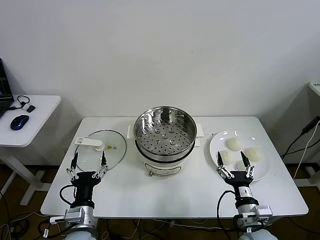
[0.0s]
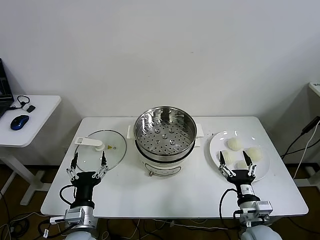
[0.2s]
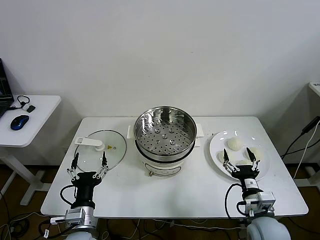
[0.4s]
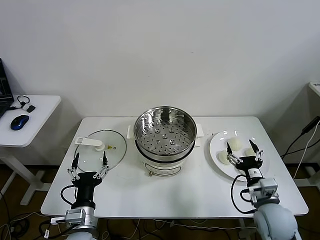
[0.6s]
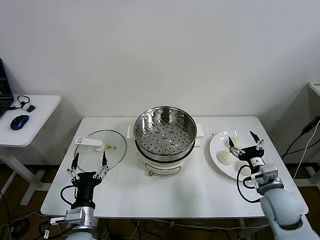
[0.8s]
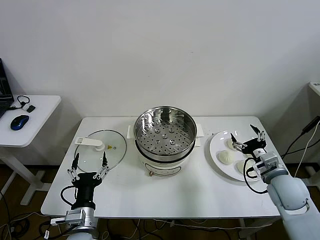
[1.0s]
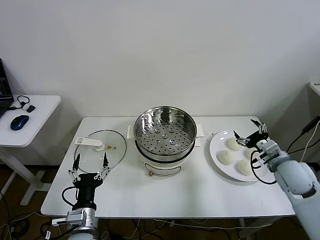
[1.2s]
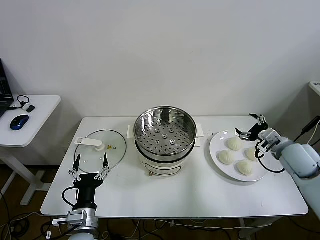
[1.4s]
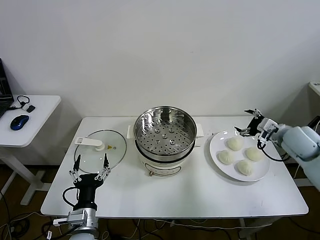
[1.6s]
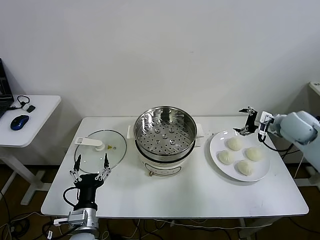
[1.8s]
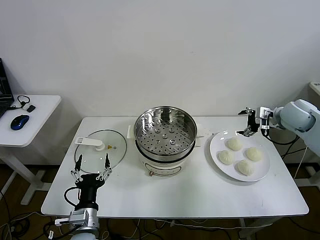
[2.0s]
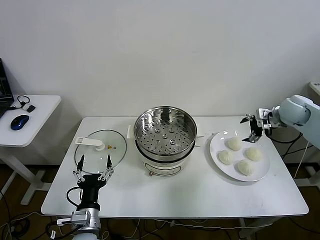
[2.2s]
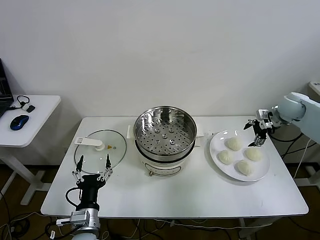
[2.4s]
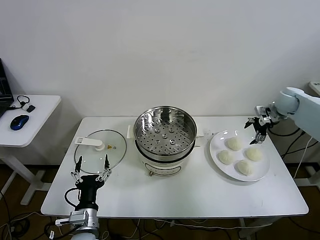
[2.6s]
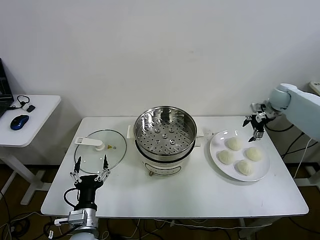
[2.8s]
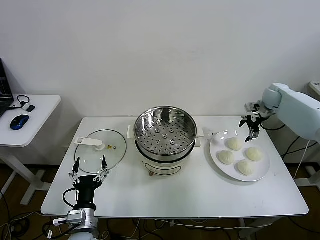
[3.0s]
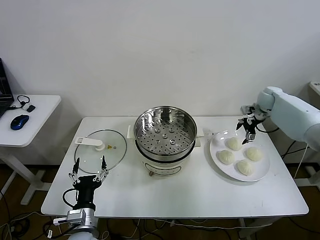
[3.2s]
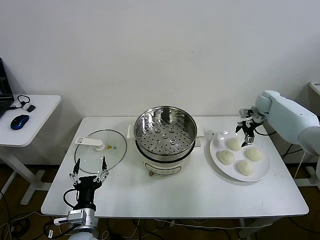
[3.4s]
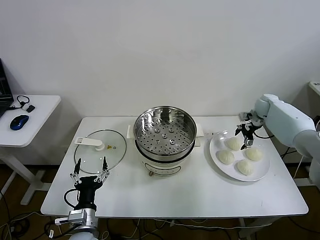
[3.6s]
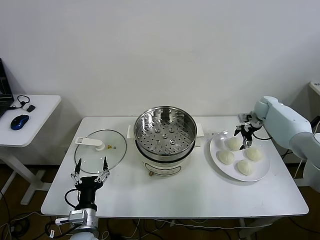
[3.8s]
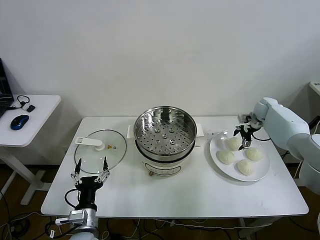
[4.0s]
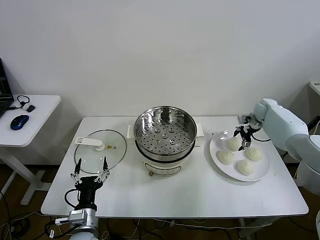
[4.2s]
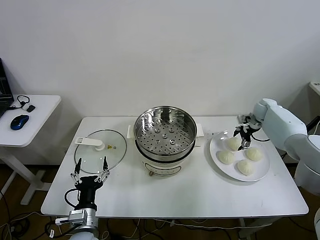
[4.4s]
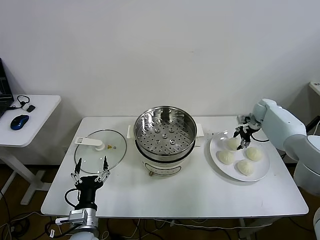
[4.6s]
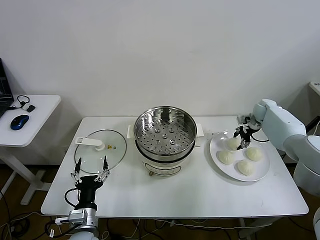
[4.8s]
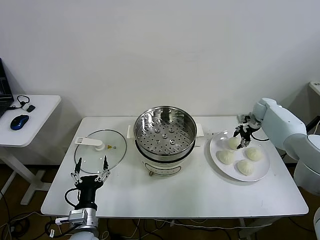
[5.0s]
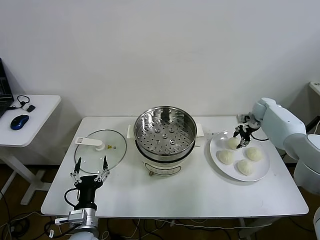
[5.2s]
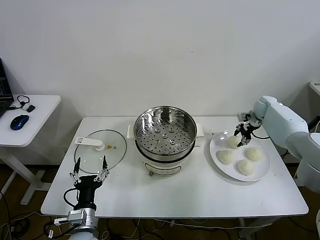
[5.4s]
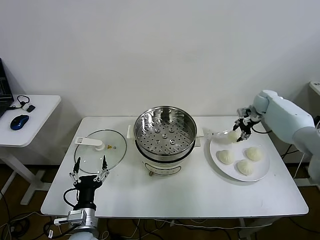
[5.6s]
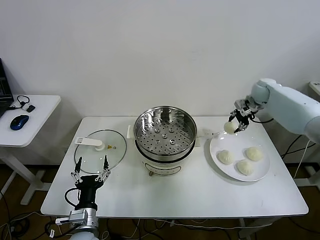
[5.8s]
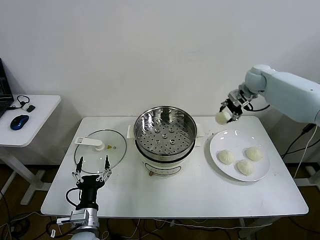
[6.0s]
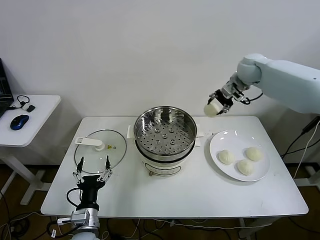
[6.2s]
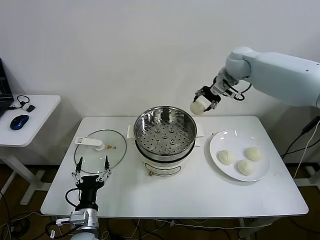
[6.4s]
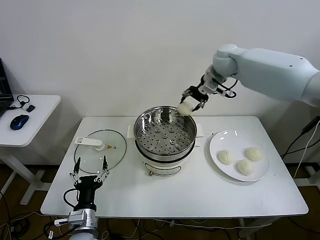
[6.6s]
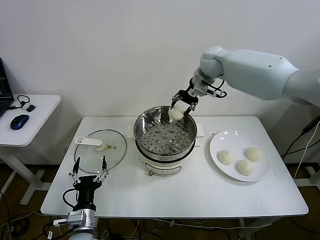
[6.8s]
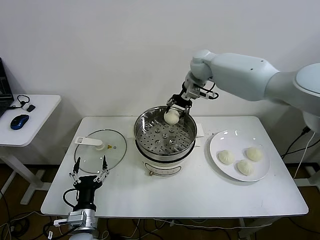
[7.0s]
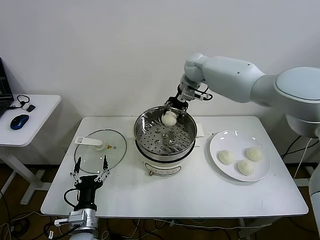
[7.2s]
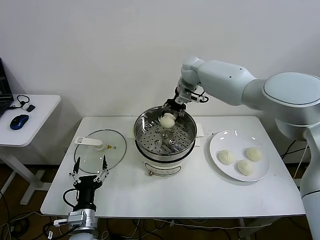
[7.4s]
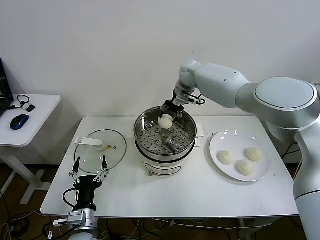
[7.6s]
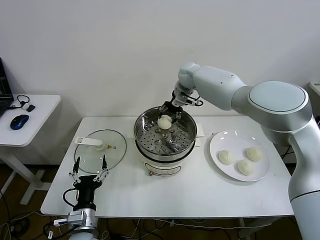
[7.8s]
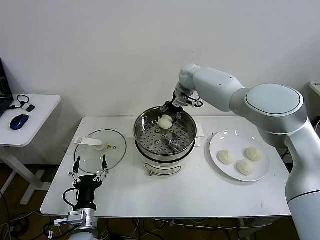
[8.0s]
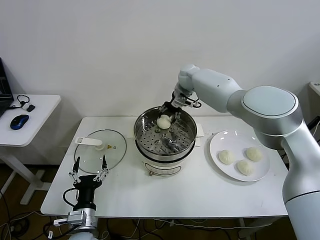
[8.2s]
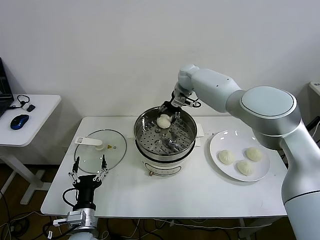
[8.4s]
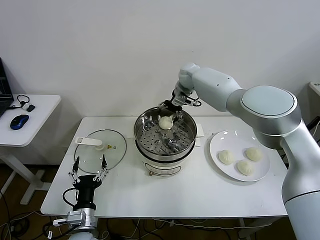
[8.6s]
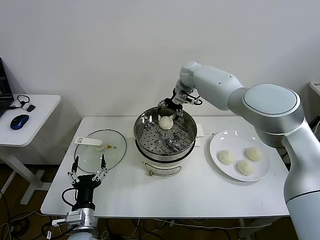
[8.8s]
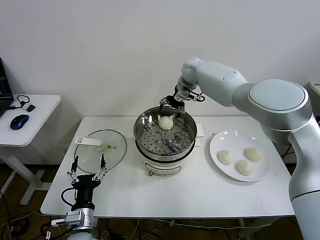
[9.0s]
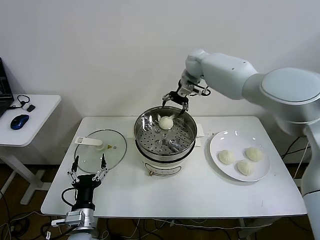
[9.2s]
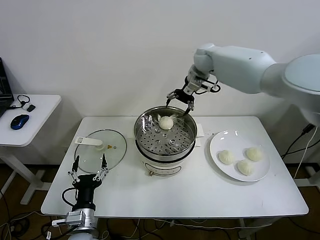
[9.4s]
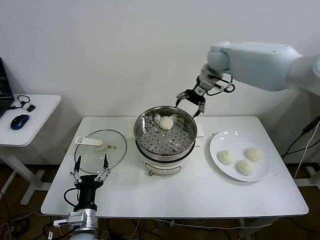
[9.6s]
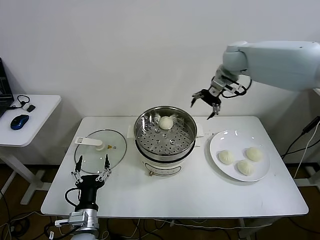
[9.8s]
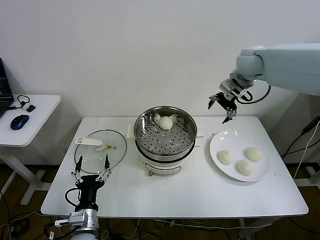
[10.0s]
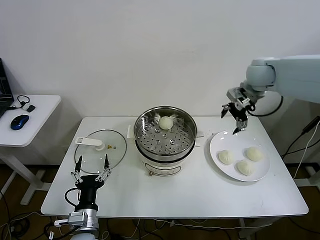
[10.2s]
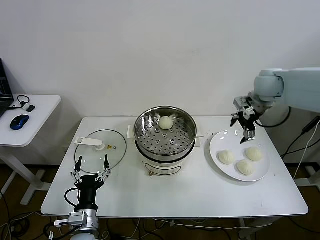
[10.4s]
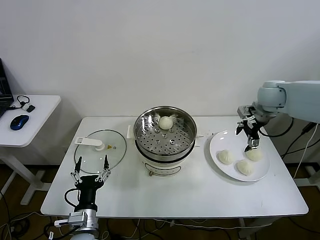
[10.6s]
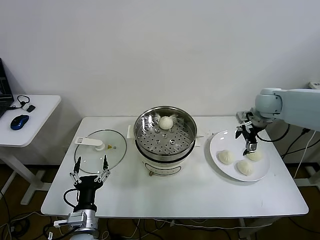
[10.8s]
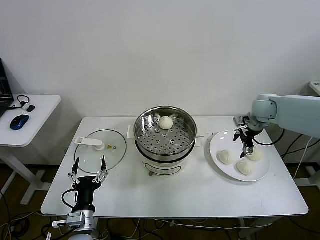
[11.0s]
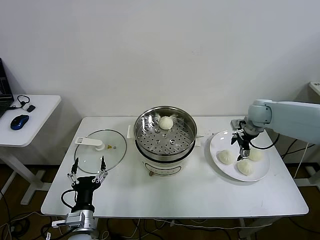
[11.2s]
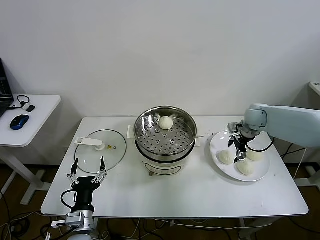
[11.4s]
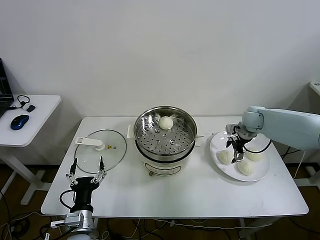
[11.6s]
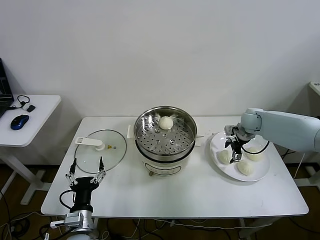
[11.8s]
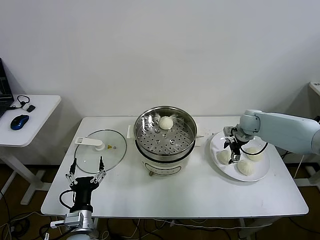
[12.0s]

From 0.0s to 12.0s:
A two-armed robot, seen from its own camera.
Step, from 0.0s to 5.0s: Grasp the baozi in the plate with right gripper.
Step, from 5.2s to 8.8s: Place the baozi on the steamer with right gripper.
From 1.6s to 3.0s: The right gripper shifts some 20 cm forward.
From 3.0s to 4.4s: The right gripper heads downward, covering approximately 5 cm.
From 4.4s to 6.0s: The right gripper heads upward and to the left, covering approximately 20 cm, and closes up.
From 6.0s to 7.6s: The right gripper shifts some 20 cm to the left.
From 7.6s to 9.0s: The right gripper opens up.
From 9.0s to 10.4s: The right gripper is displaced to the right and backward by some 25 cm.
From 10.4s to 12.0s: The right gripper shifts some 20 cm downward.

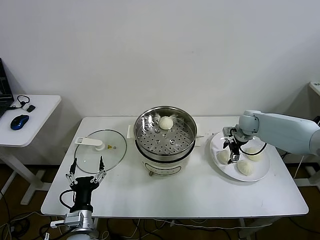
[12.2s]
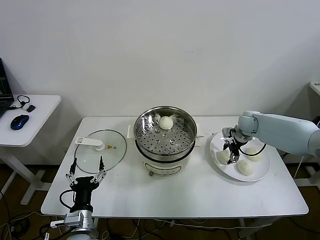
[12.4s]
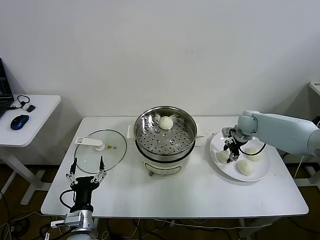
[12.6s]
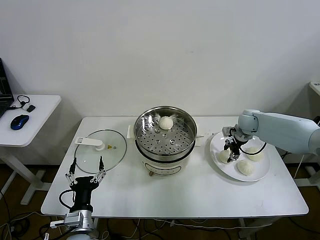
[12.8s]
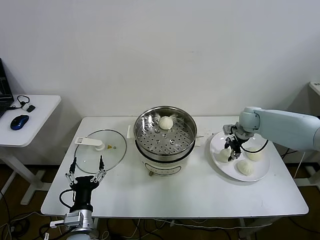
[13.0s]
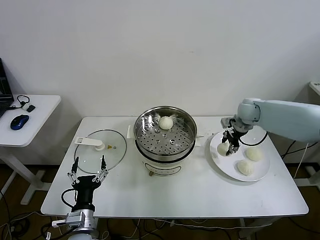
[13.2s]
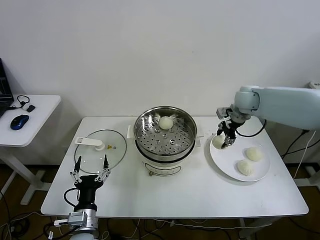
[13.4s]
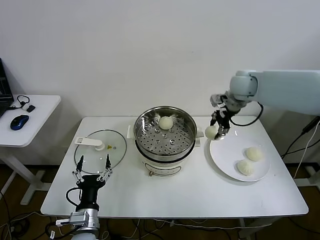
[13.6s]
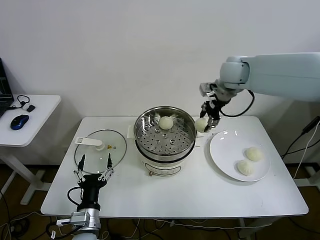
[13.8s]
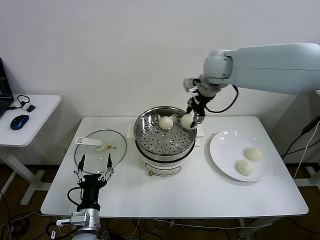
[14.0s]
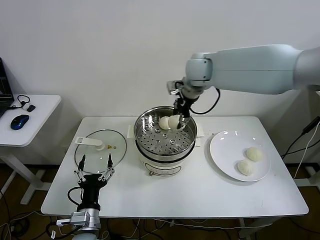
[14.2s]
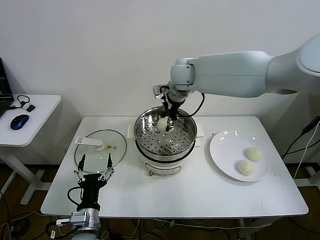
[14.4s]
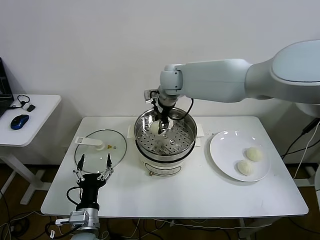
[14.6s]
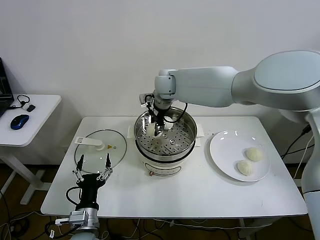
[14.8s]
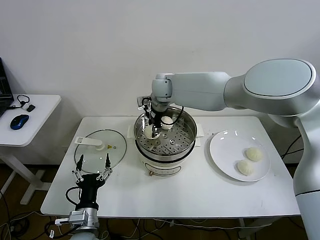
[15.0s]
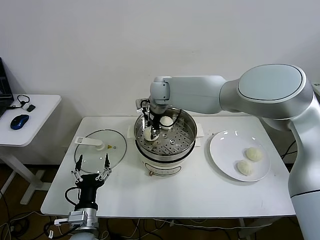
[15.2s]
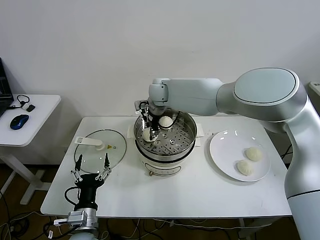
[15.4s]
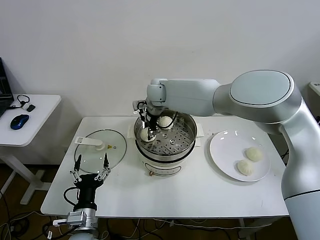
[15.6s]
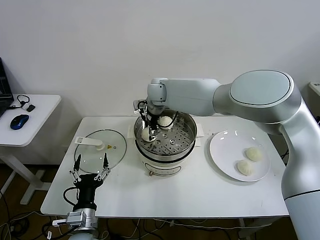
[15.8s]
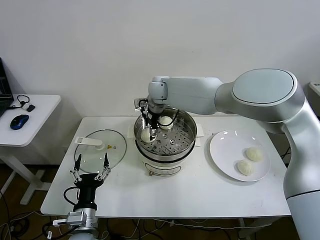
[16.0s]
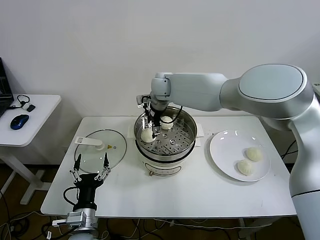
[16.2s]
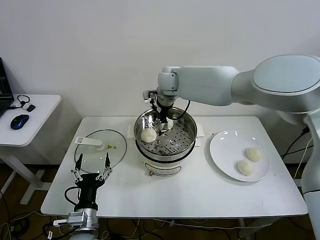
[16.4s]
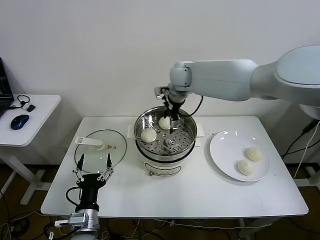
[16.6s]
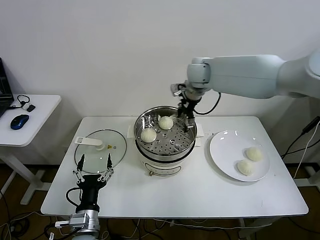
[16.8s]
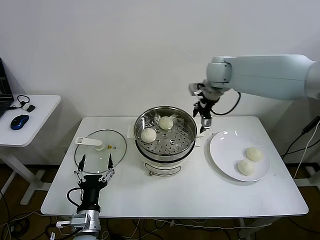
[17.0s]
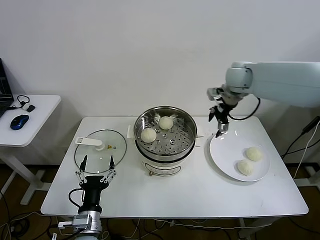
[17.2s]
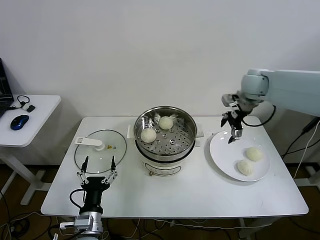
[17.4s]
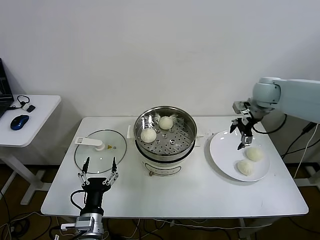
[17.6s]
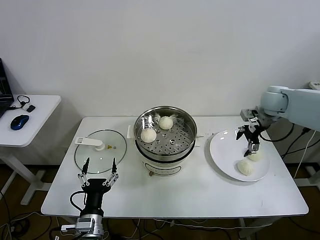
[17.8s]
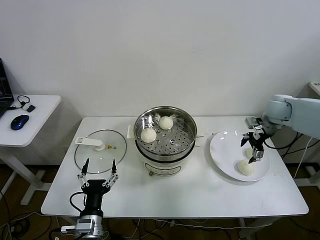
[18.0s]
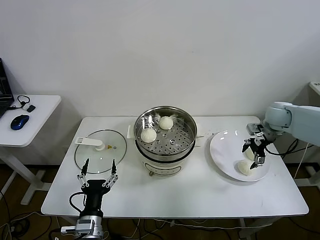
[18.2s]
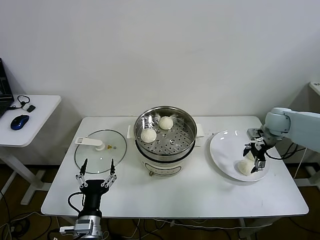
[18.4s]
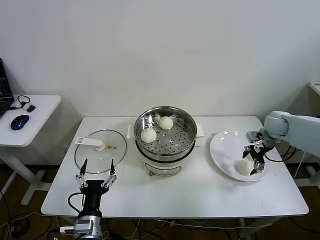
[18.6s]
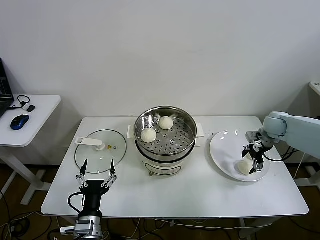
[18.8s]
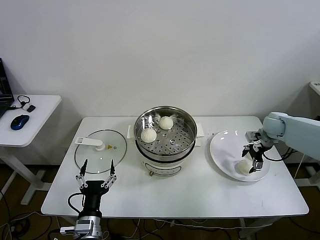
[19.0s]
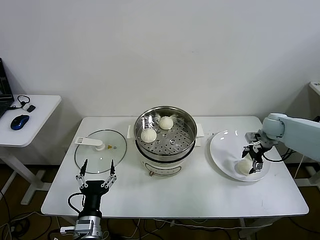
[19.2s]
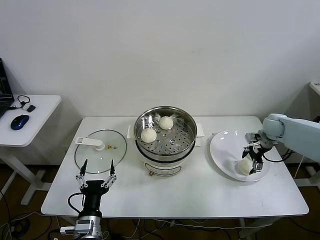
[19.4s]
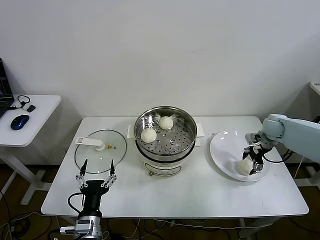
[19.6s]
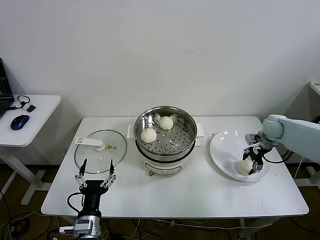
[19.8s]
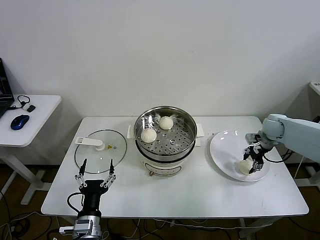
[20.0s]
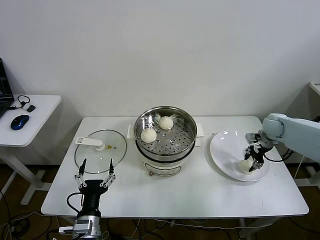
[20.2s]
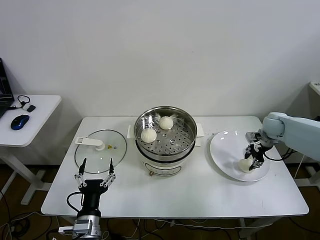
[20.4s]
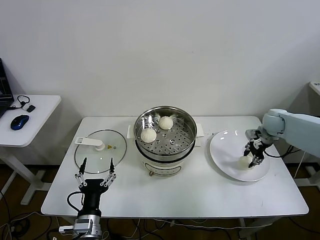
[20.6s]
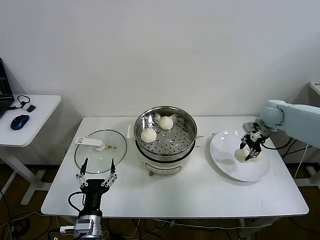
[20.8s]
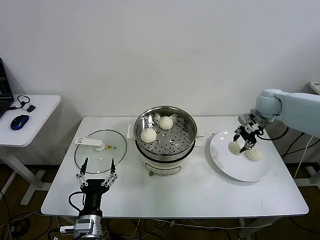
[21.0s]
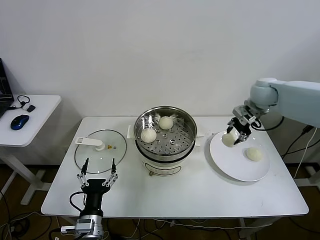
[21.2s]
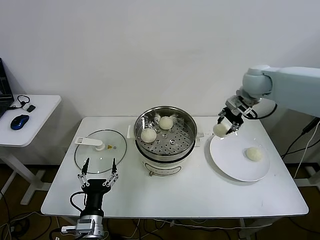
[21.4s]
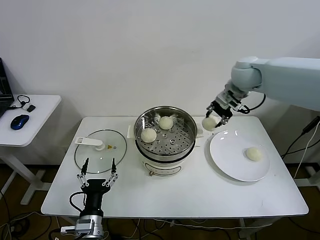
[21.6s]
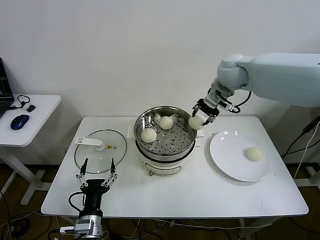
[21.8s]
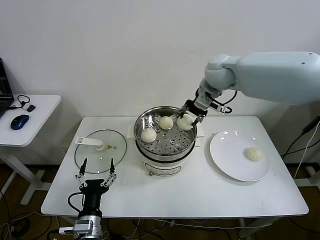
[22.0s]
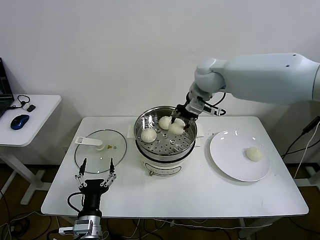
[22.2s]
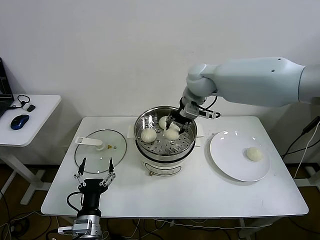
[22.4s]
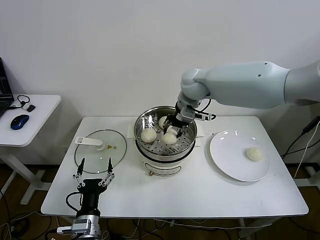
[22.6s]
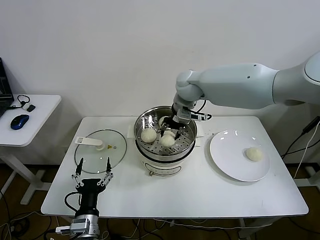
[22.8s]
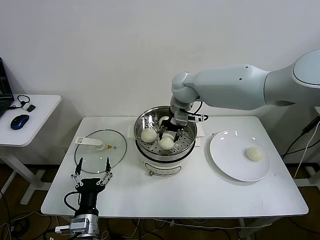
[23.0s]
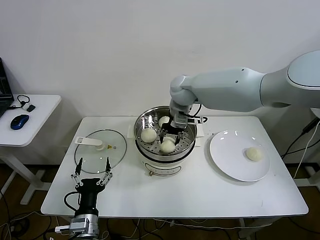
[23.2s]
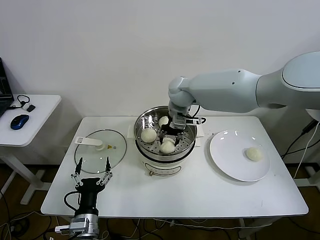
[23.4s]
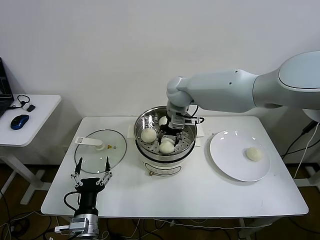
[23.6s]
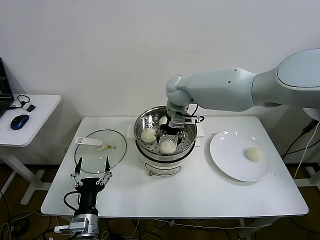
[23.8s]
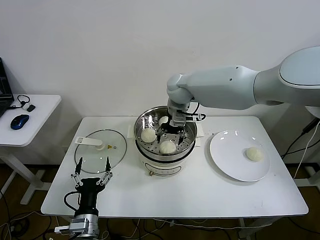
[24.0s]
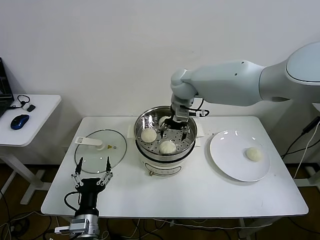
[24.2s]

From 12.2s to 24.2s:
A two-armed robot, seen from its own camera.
Step, from 12.8s to 16.0s: Place the baozi on the steamer with right gripper.
Step, from 16.2s to 20.0s: Grasp the baozi in the plate with right gripper.
Step, from 20.4s to 24.0s: Place the baozi on the steamer with right gripper.
From 12.2s to 13.8s: The right gripper moves upward and to the left, roughly 30 cm, and closes.
From 13.8s to 15.2s: The right gripper heads to the left and downward, covering roughly 25 cm.
From 15.2s to 16.6s: The right gripper is displaced to the right and upward by roughly 10 cm, and opens.
From 16.6s to 18.2s: The right gripper travels to the right by roughly 35 cm.
From 18.2s to 19.8s: The right gripper shifts approximately 5 cm downward, and closes up.
From 19.8s to 21.2s: The right gripper travels upward and to the left by roughly 20 cm, and closes up.
From 21.2s to 22.6s: The right gripper goes roughly 25 cm to the left.
From 22.6s to 24.2s: The right gripper opens.
